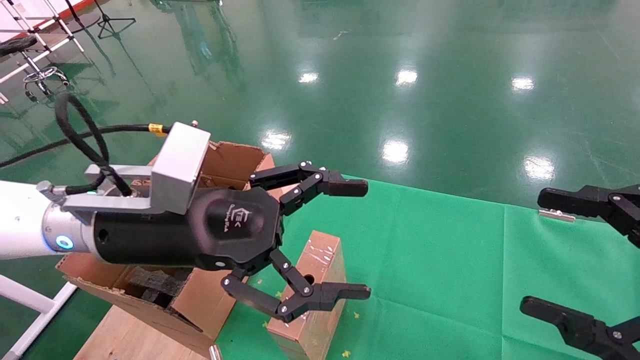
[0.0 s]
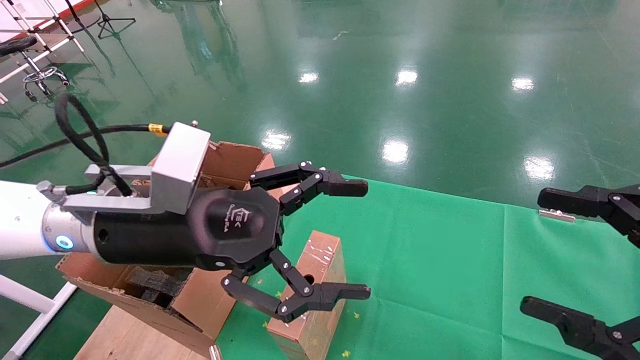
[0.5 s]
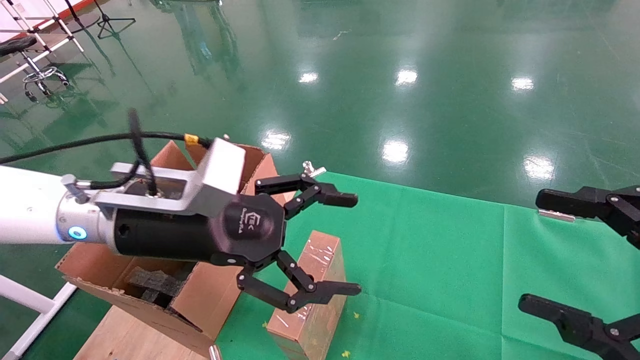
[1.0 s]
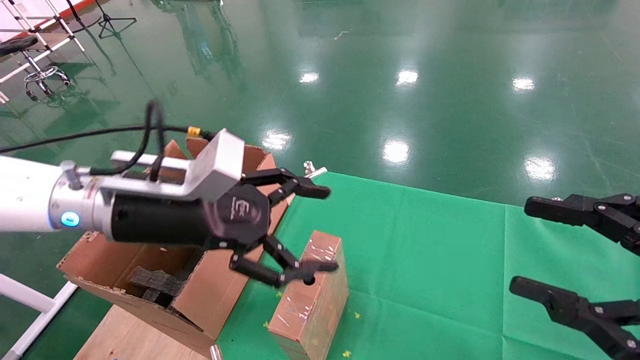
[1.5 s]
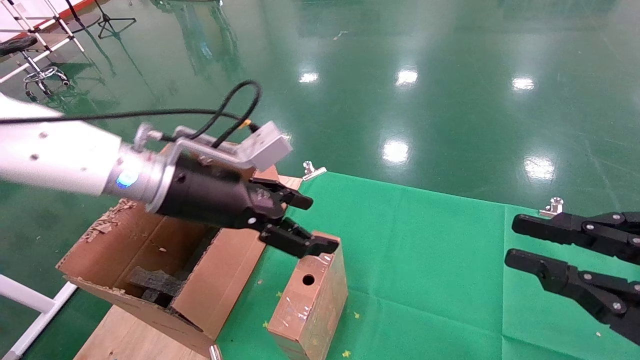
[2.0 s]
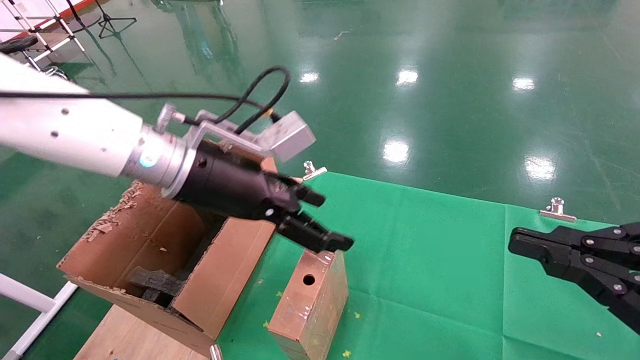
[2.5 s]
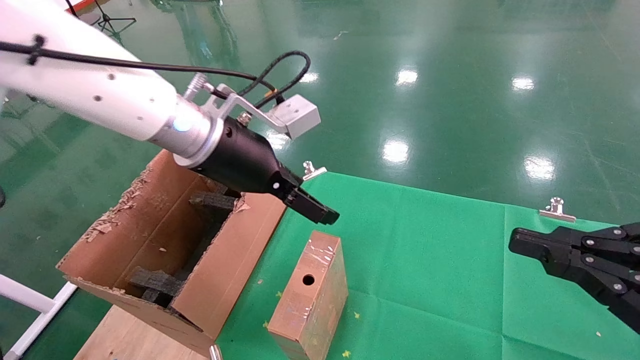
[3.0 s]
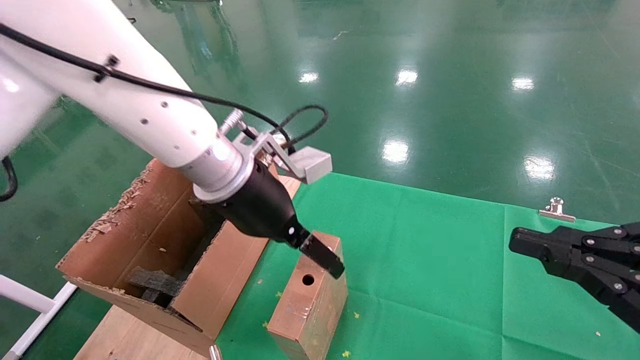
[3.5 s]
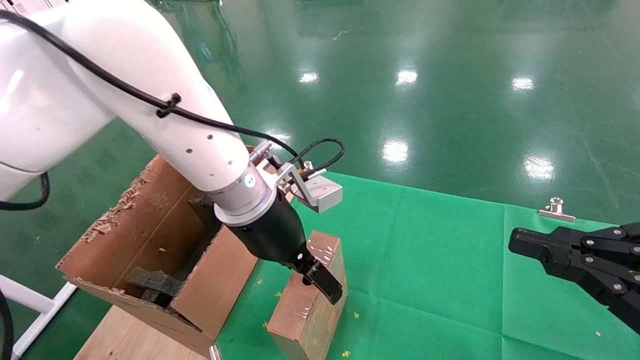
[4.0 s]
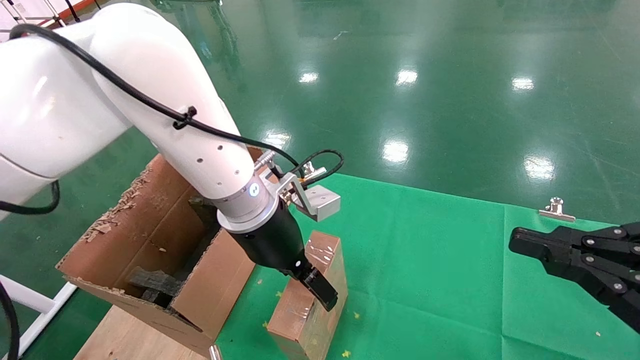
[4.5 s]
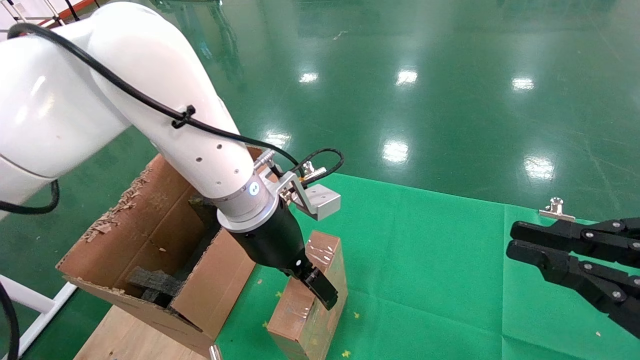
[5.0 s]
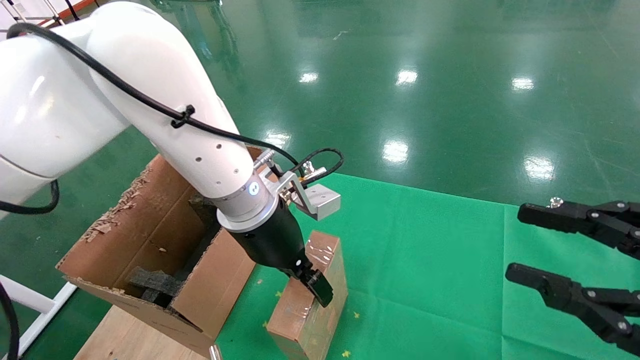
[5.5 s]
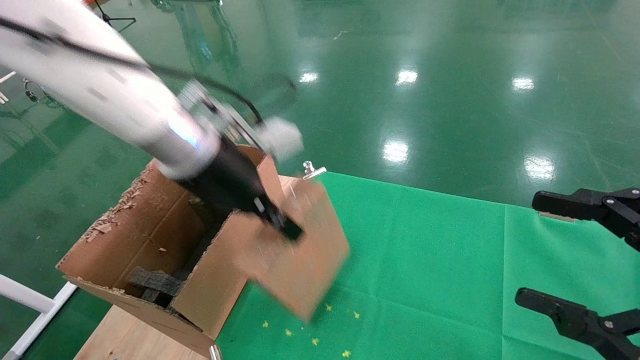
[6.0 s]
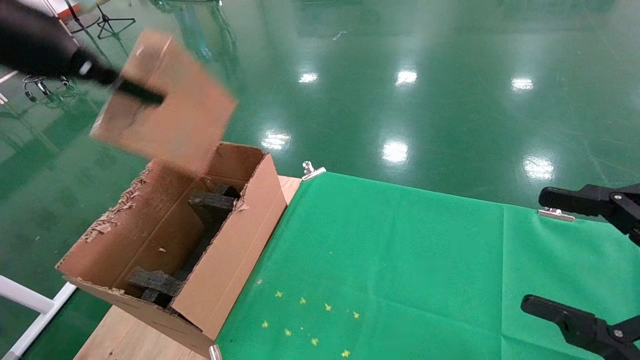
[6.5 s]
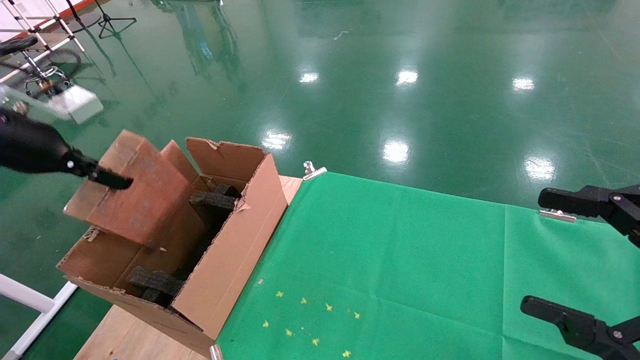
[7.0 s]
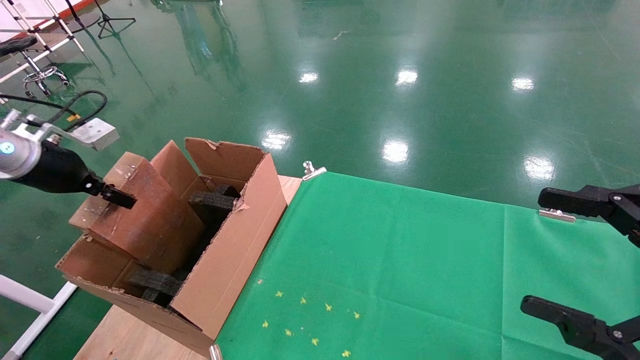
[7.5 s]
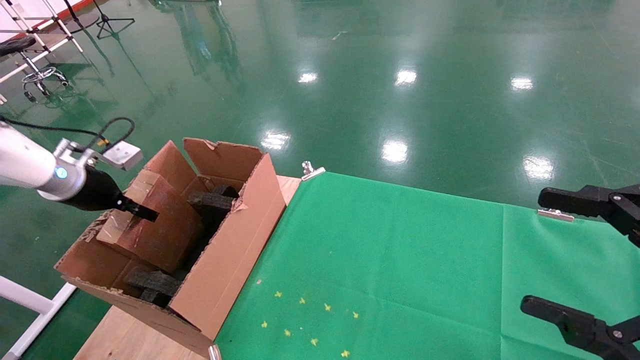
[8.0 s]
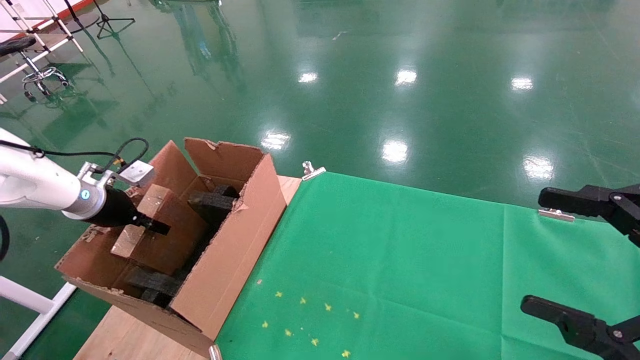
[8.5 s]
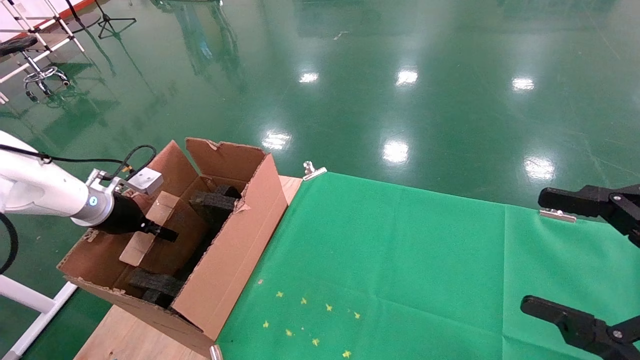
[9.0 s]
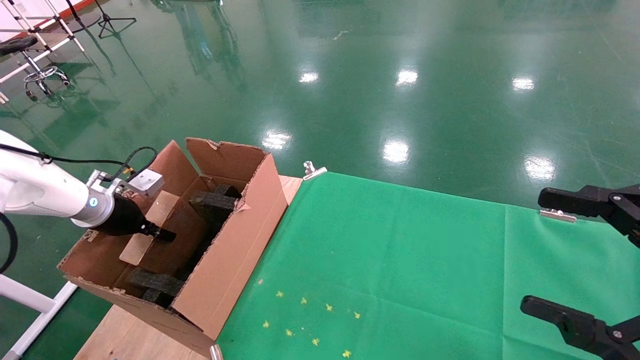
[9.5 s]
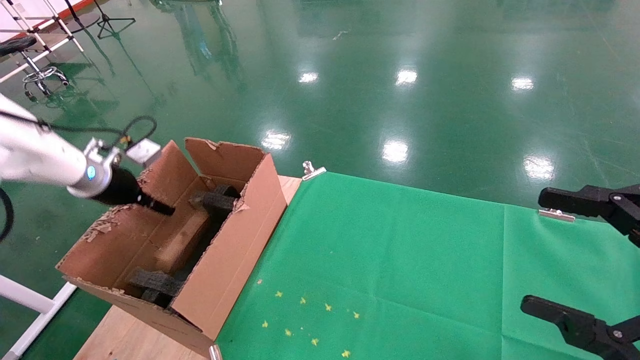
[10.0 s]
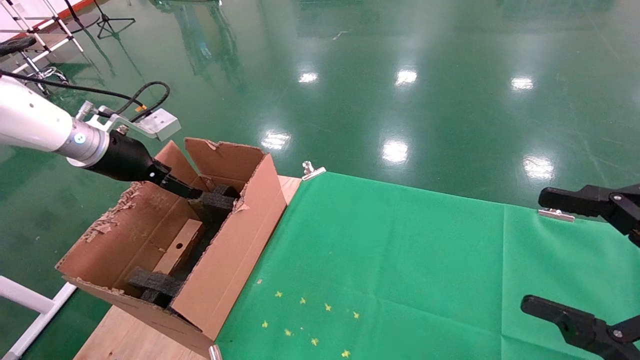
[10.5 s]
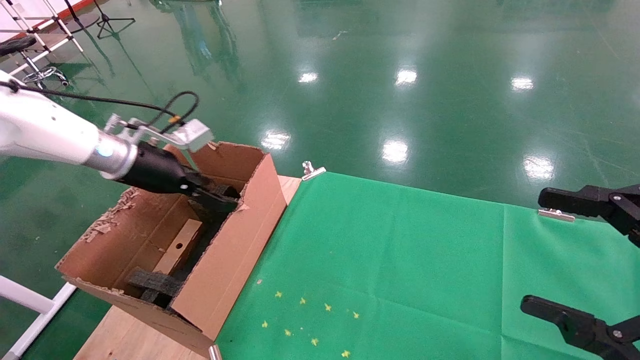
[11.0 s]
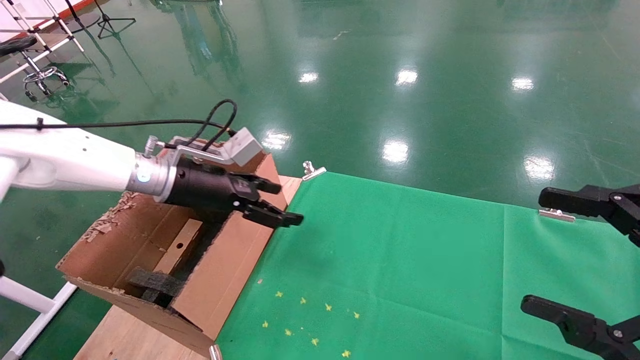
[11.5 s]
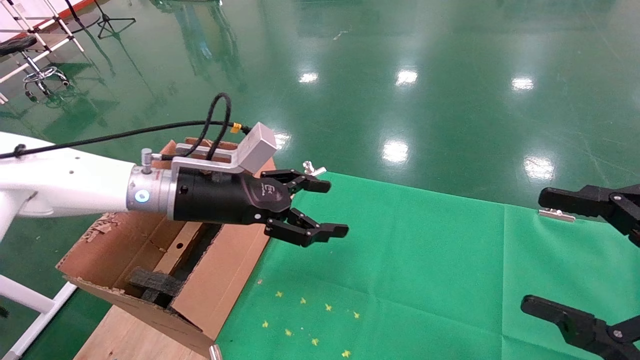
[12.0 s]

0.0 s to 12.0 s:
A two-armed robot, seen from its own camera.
Task of the whole recording: using a robotic arm to pick up a cardboard box and palace it the carton.
Step, 1.5 to 5.5 s: Pick up the mouse and the power cord paper box.
Step, 6.0 to 10.5 s: Place the mouse and the power cord paper box into the container.
0.0 to 2.0 s: The left gripper travels forward by about 5 cm. Meanwhile the right gripper closes up.
2.0 to 4.0 s: The left gripper moves to the right, approximately 10 cm.
4.0 to 6.0 s: The right gripper opens, while the left gripper goes about 10 cm upward and to the left, and closes up.
6.0 to 8.0 s: The left gripper heads to the left and downward, covering roughly 35 cm.
8.0 to 10.0 s: The left gripper opens its fingers.
10.0 to 12.0 s: The left gripper shifts some 20 cm to the right.

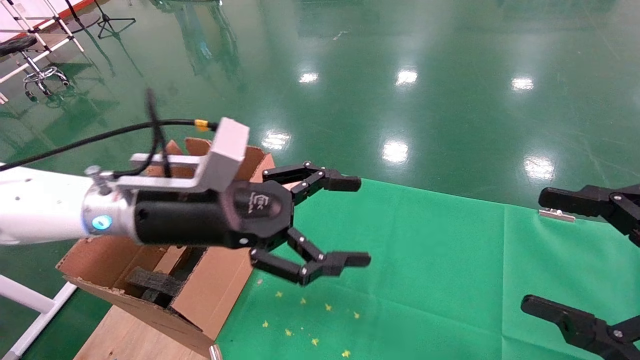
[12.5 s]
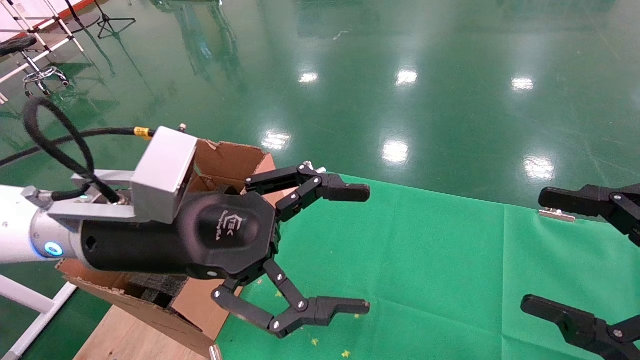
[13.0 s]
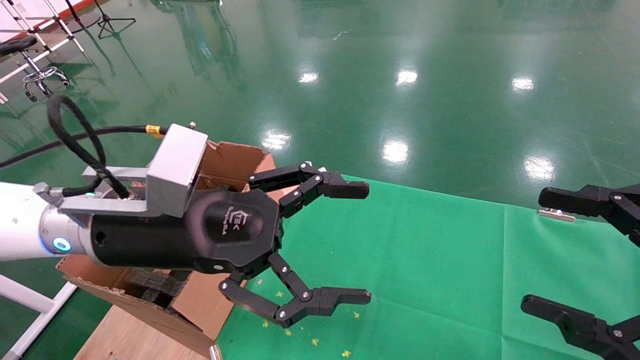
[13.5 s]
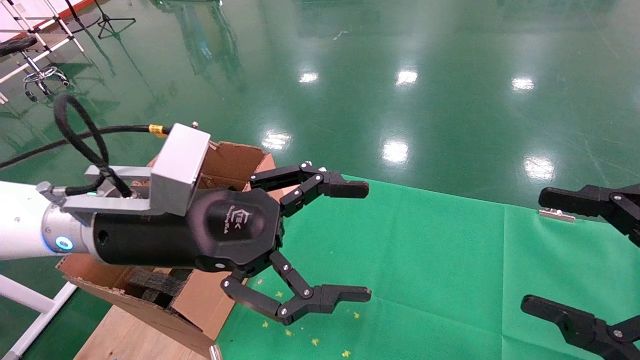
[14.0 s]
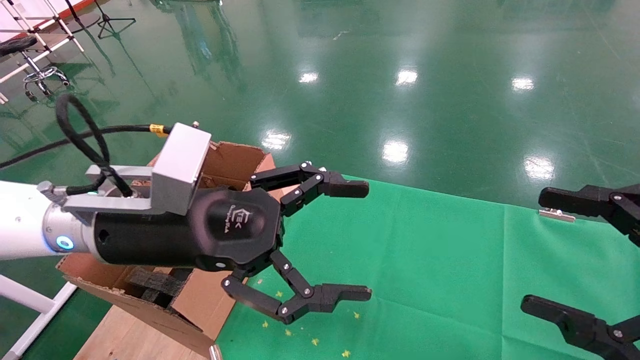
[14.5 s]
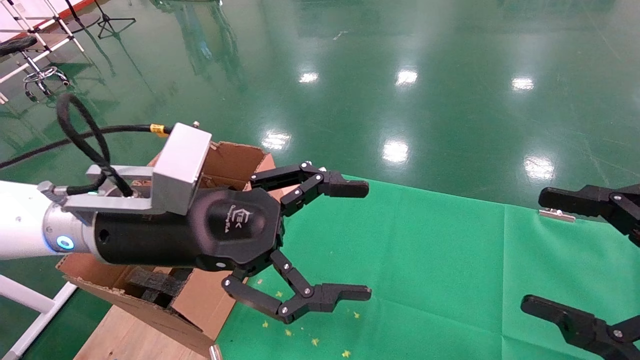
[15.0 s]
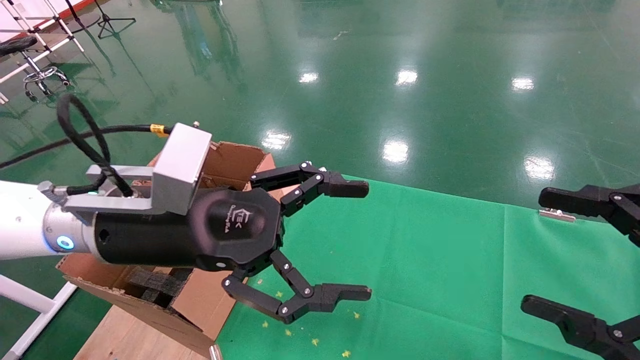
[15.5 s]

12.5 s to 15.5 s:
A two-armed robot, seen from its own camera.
Task of the whole recording: using a robotic arm to pick up a cardboard box and palace it the carton.
12.5 to 14.0 s: The grippers make only small movements.
14.0 to 15.5 s: Both grippers stay about where they are.
